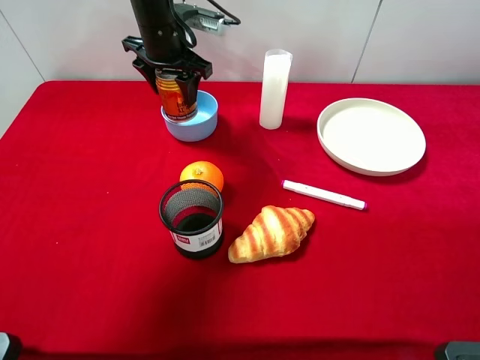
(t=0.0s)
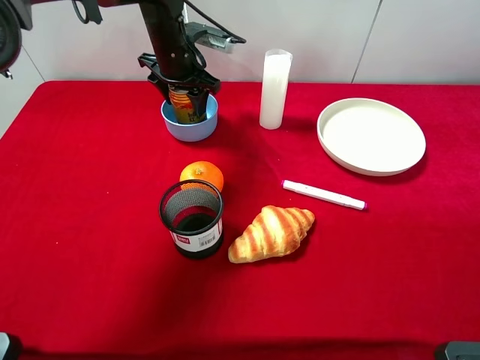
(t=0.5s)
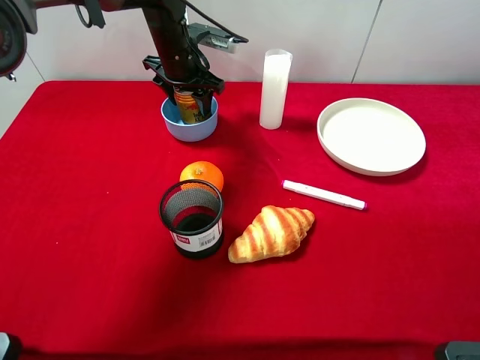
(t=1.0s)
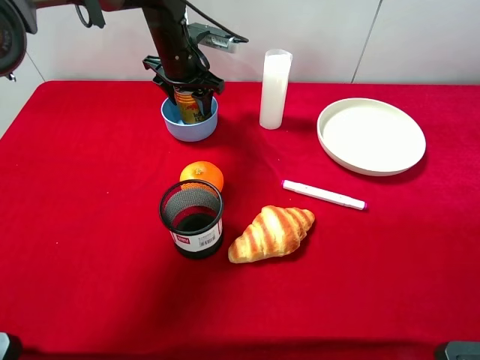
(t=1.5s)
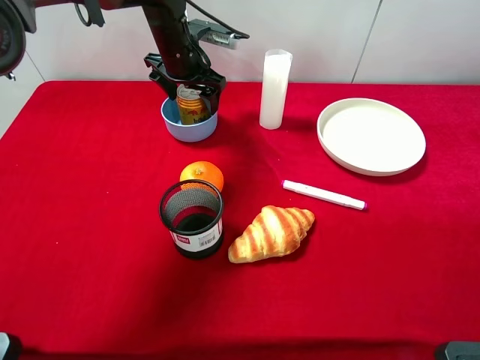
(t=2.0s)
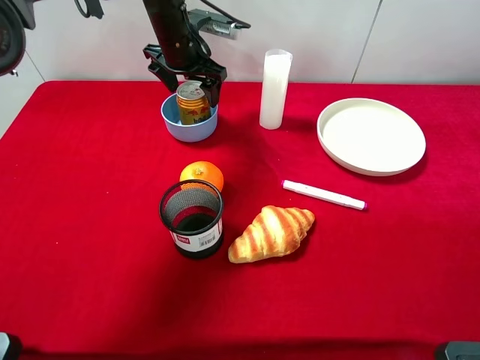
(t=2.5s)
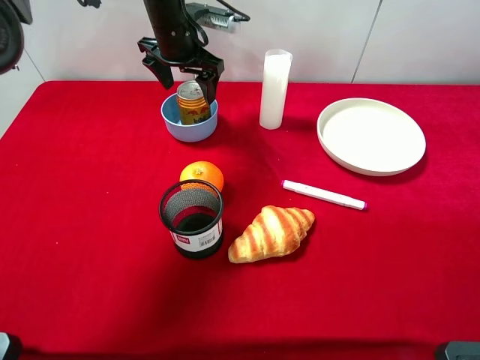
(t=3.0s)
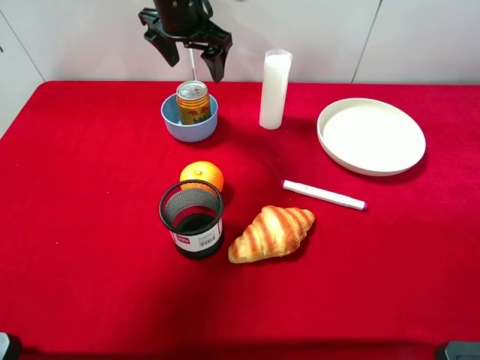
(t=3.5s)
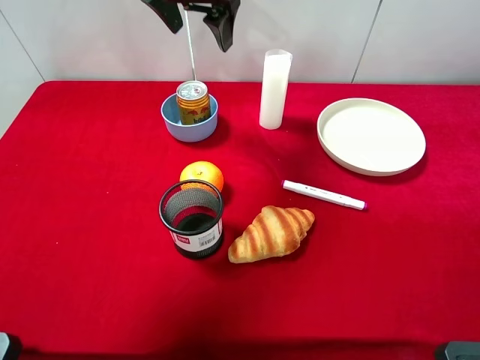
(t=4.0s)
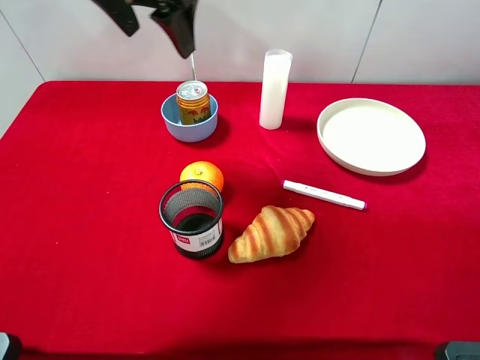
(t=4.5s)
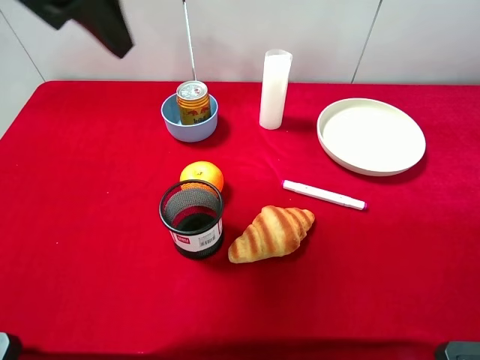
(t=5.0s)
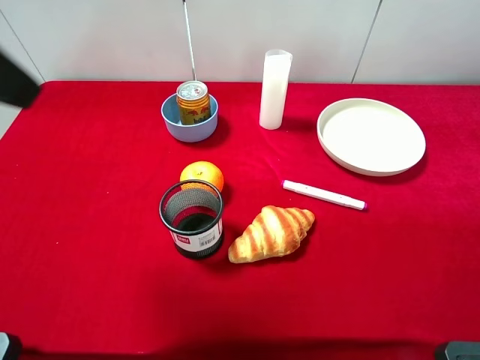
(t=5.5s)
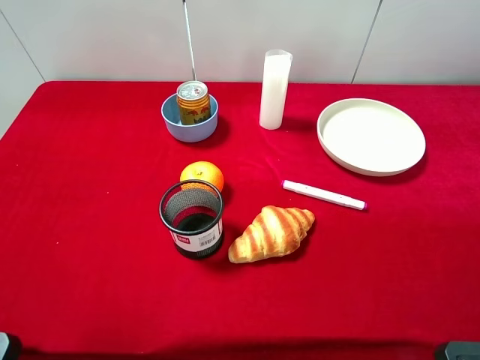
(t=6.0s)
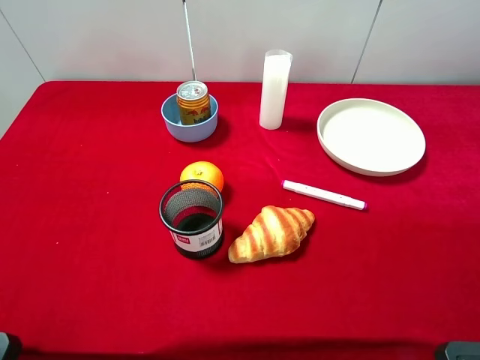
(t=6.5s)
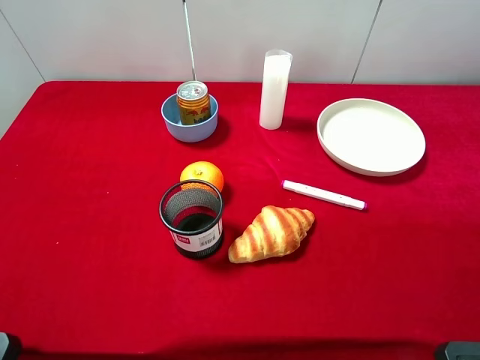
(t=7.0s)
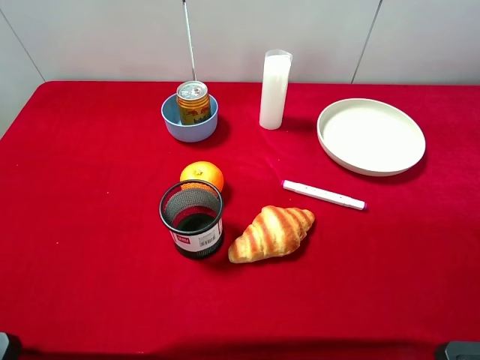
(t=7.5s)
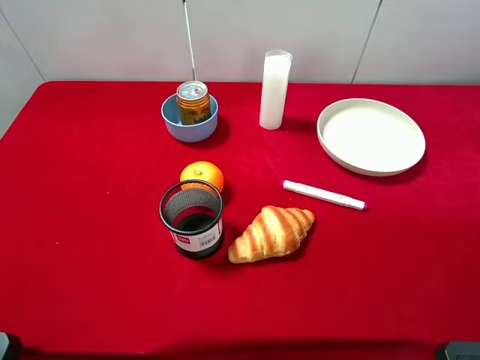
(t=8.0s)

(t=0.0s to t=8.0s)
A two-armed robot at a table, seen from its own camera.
Task of the whole recording: pick up an item with a gripper and place it in a random container on the desktop.
t=0.0s - t=2.0s: The left gripper opens its fingers.
t=2.0s - t=4.0s: The left gripper goes roughly 15 cm upward.
t=4.0s - t=6.0s: The left gripper shifts some 40 cm backward and to the left.
t=6.0s - t=8.0s: The left gripper goes roughly 10 cm downward and backward.

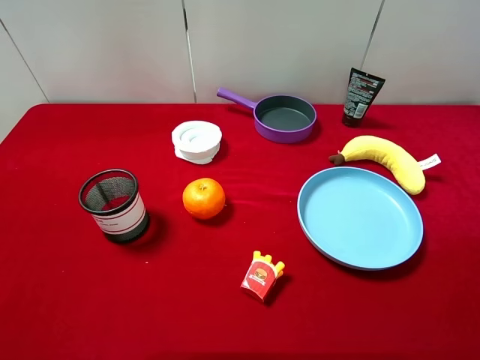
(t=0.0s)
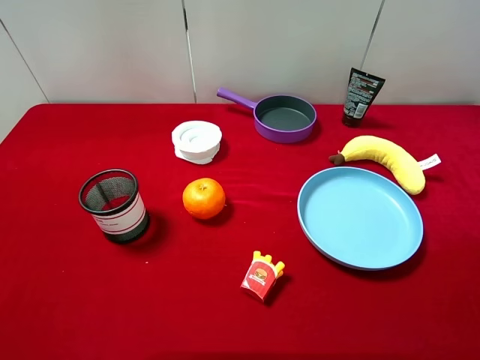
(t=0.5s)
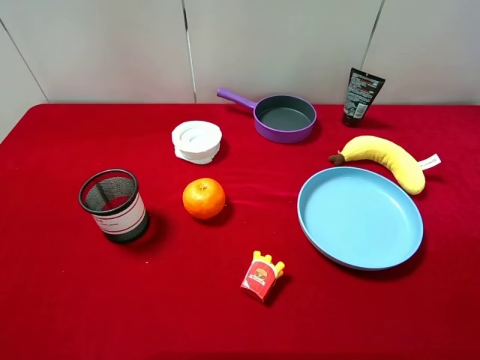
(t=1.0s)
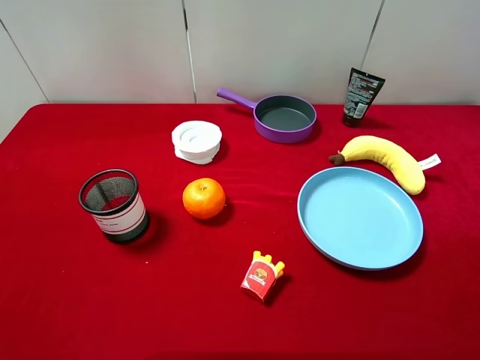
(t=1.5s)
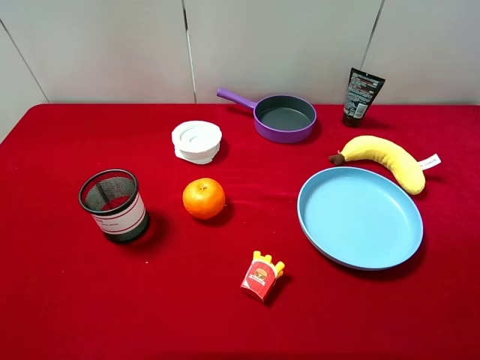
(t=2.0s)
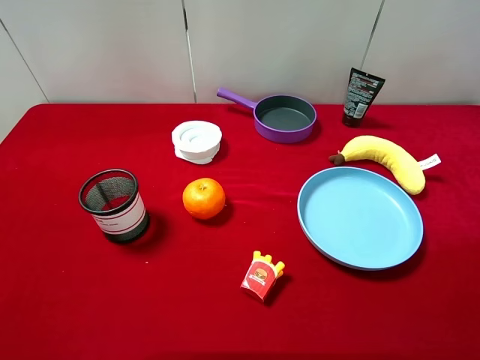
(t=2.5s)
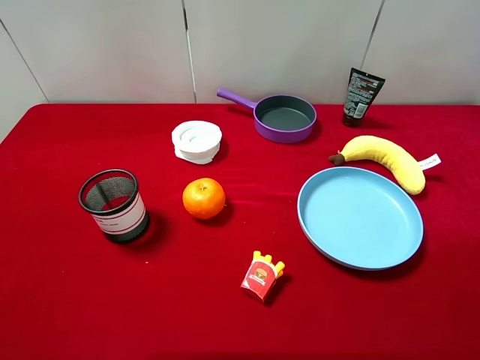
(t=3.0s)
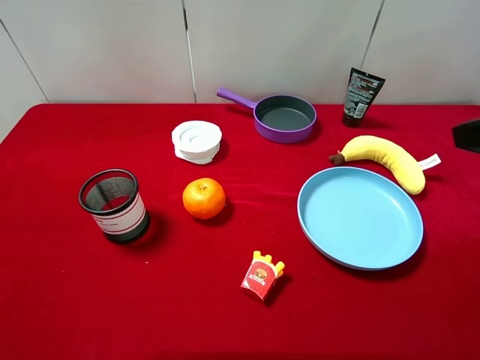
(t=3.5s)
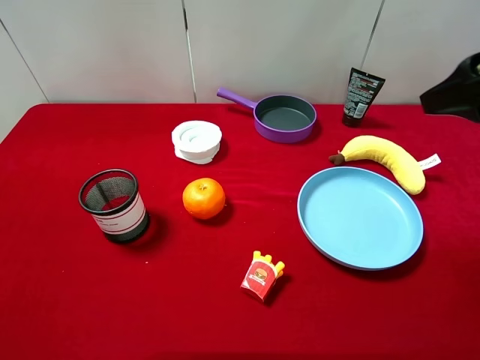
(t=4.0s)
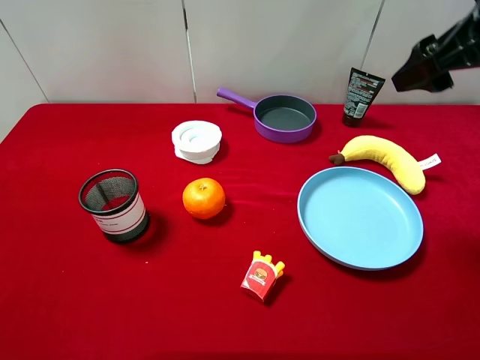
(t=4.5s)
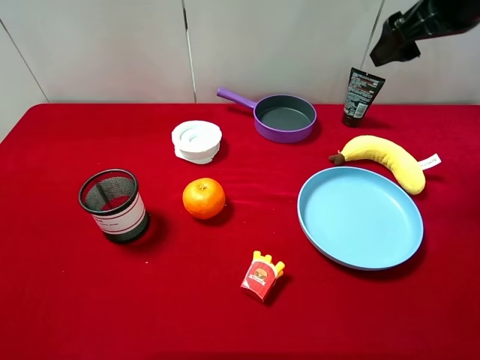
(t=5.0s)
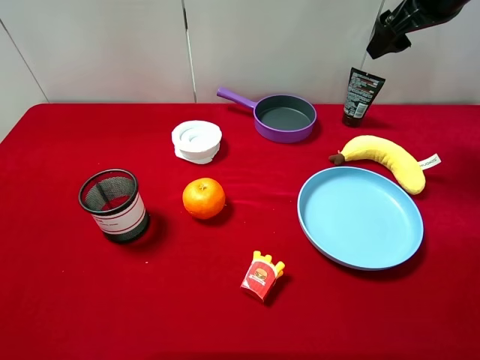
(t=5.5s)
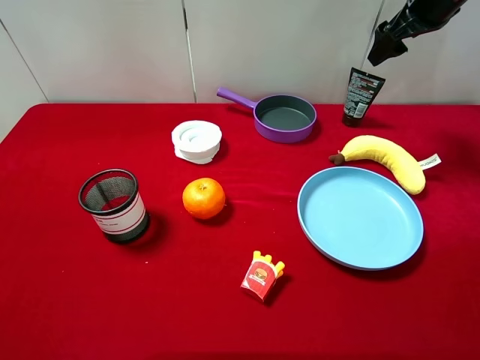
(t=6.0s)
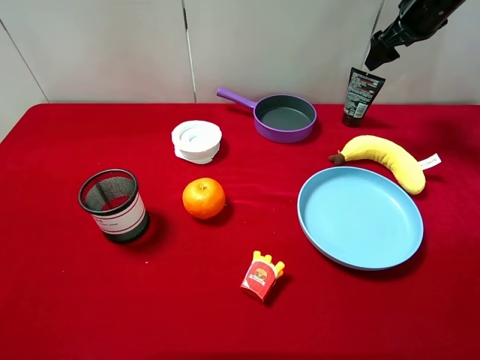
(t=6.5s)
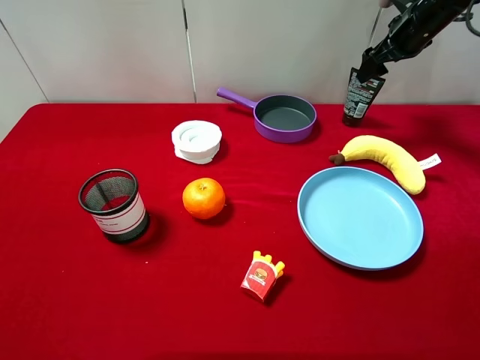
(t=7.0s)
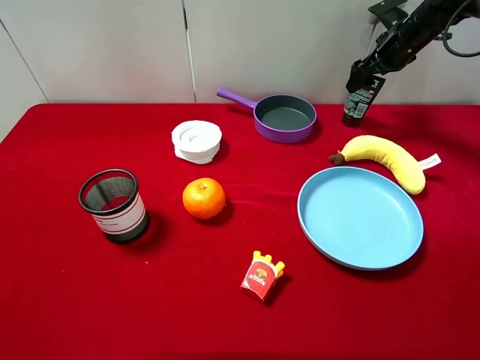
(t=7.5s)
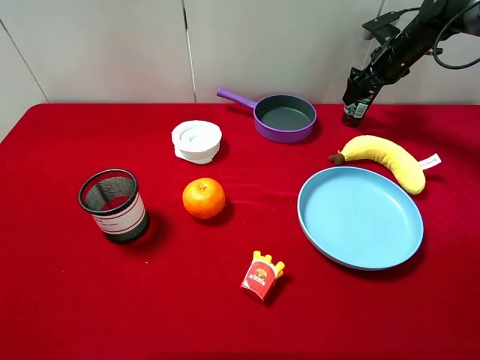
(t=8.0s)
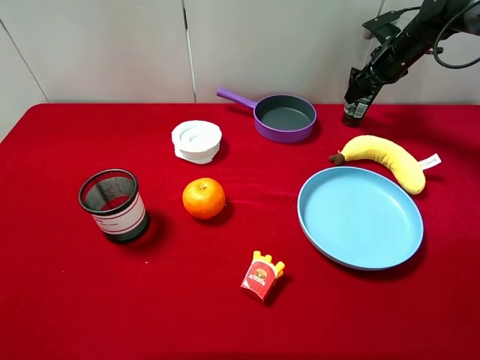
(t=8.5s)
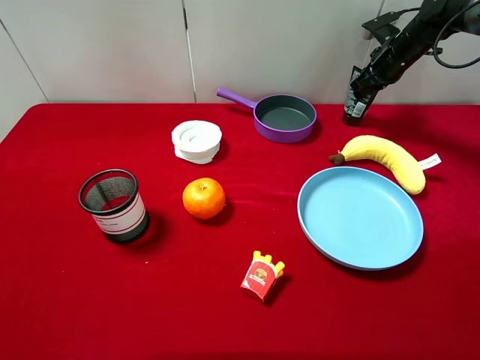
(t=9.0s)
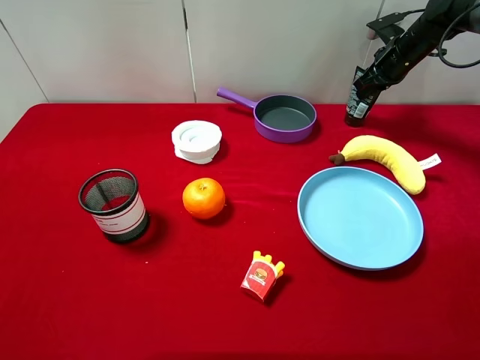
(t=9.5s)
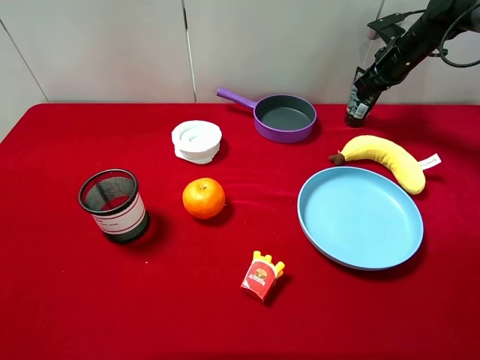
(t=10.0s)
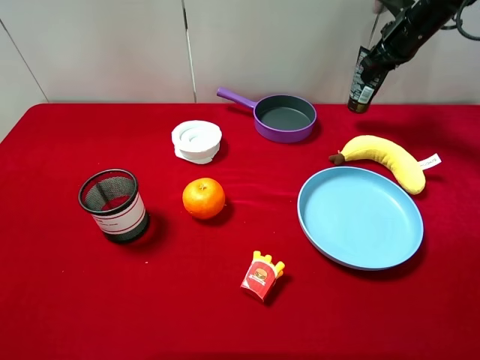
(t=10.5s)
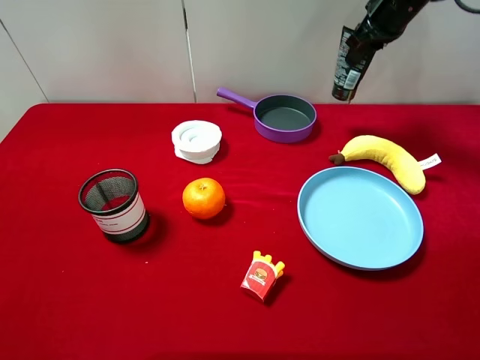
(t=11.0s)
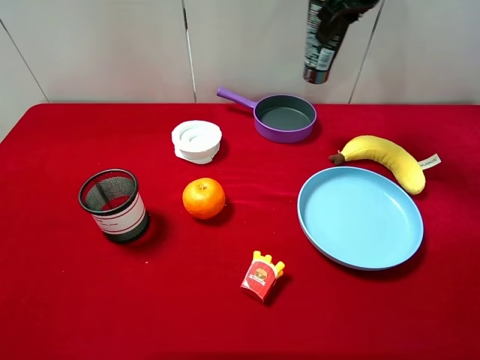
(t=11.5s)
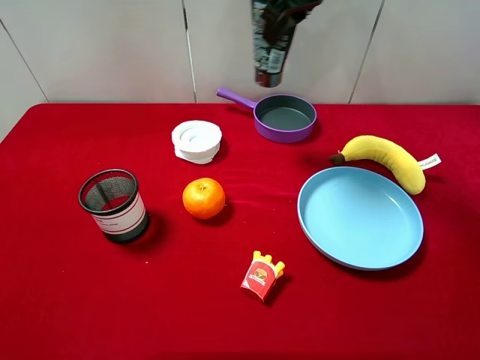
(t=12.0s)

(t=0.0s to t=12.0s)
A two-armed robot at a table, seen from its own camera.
Task of the whole recording: pick up an item with a gripper and place it in a random container on the desktop.
t=0.0s - t=2.0s: Both grippers stay about where they are.
t=2.0s - t=4.0s: The right gripper is displaced forward by approximately 20 cm.
t=4.0s - t=6.0s: The right gripper goes roughly 25 cm forward.
t=6.0s - t=8.0s: The right gripper moves downward and forward, roughly 15 cm.
t=8.0s - t=10.0s: The right gripper closes its fingers.
t=10.0s - t=12.0s: The right gripper moves to the left, upward and backward, approximately 30 cm.

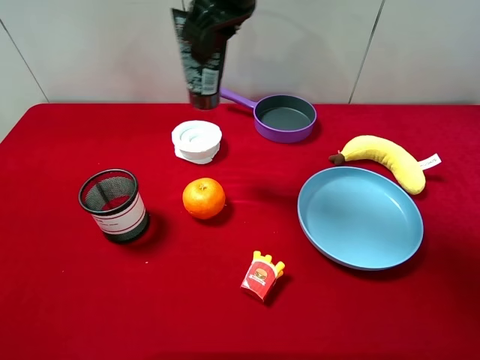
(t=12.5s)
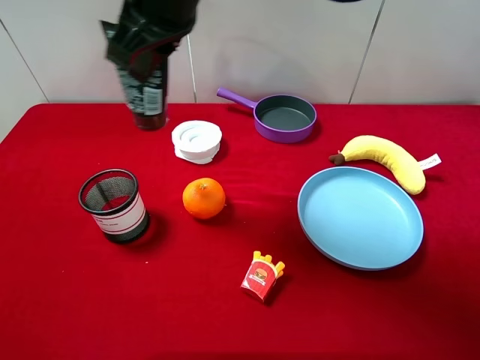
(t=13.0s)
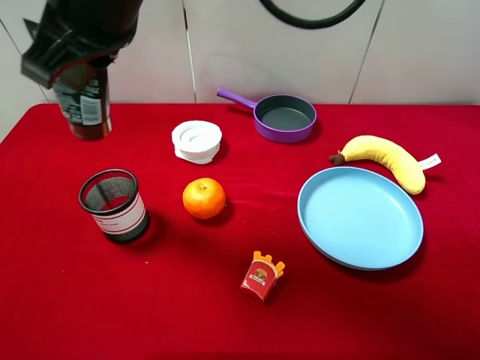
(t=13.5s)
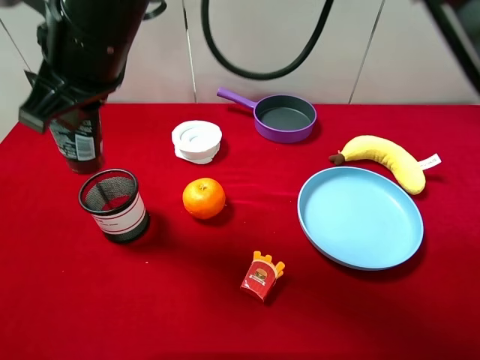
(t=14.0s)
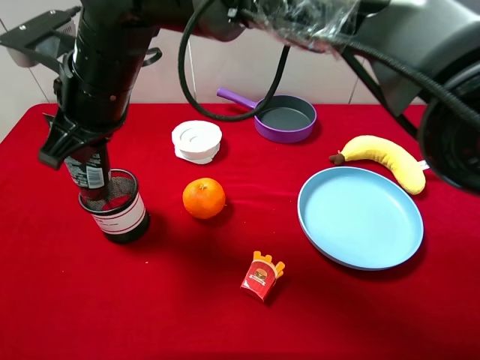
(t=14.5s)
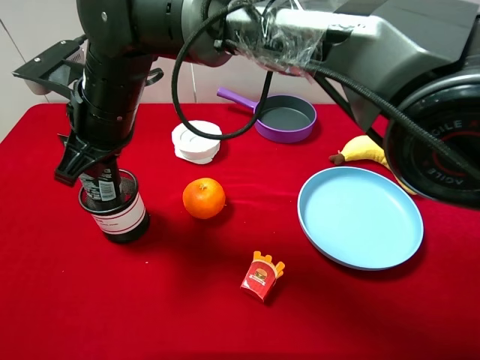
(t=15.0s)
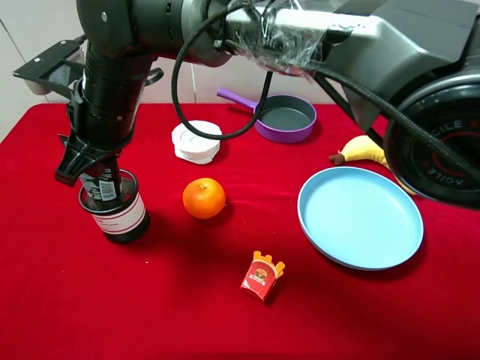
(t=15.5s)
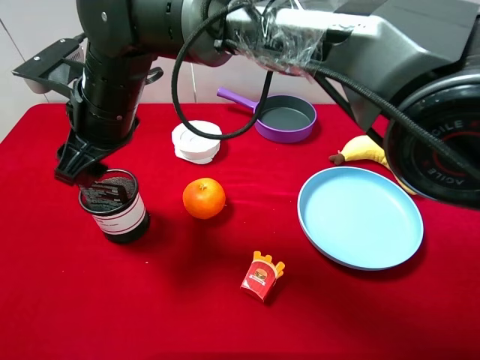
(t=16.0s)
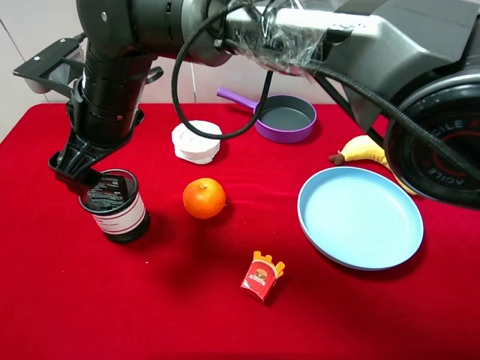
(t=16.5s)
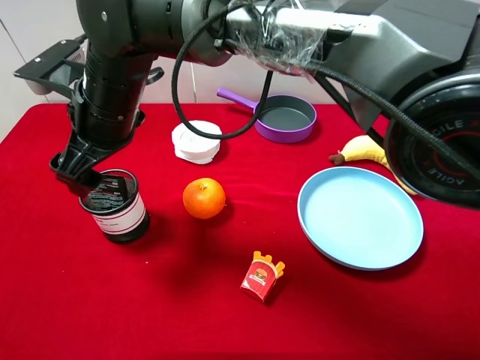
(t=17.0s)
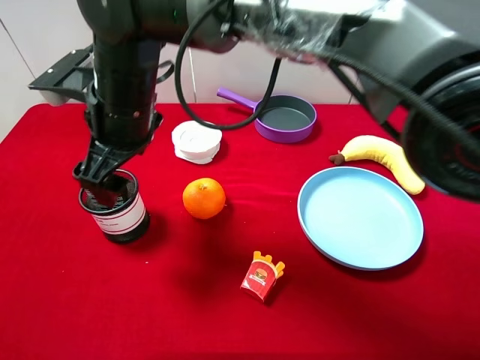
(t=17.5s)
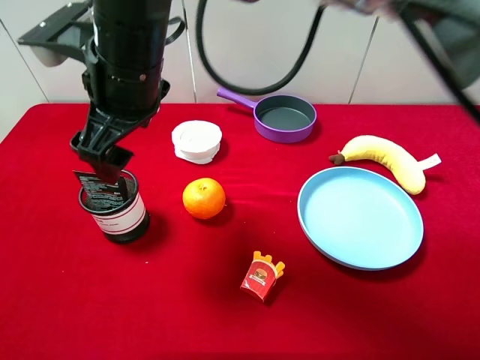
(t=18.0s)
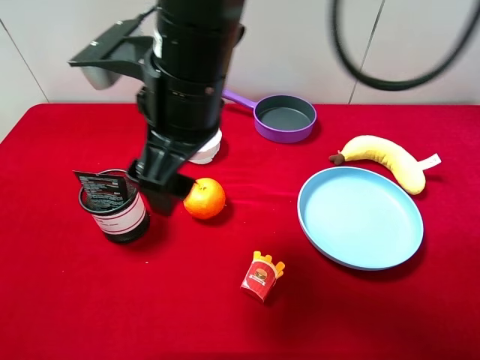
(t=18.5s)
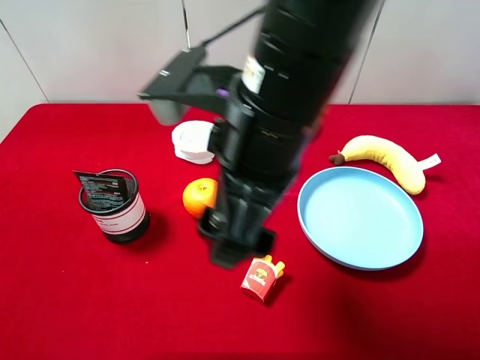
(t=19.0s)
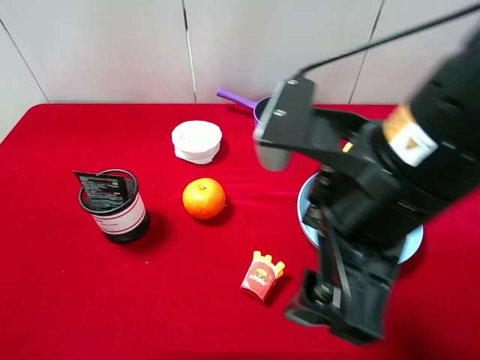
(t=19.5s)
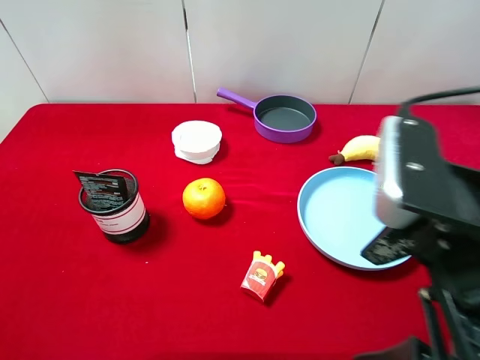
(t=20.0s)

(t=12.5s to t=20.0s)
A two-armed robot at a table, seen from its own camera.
Task of the whole recording: pick up an item with a gripper and place it in a random container on the desktop.
t=12.5s - t=14.5s: The right gripper travels to the left, downward and backward by approximately 20 cm.
t=14.5s - t=16.5s: The right gripper opens up.
t=16.5s - t=18.0s: The right gripper shifts approximately 5 cm upward.
t=18.0s - t=20.0s: The right gripper shifts approximately 35 cm to the right and backward.
